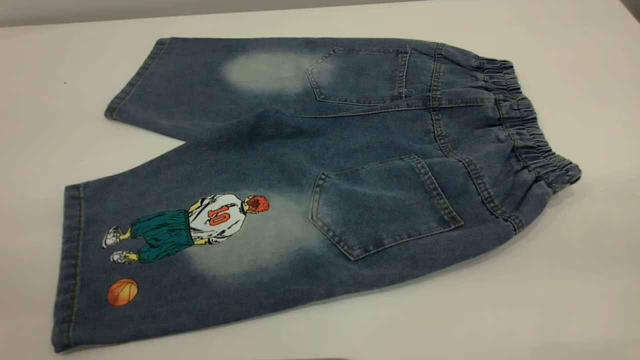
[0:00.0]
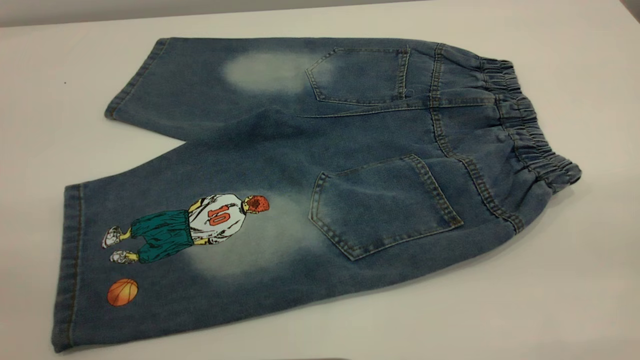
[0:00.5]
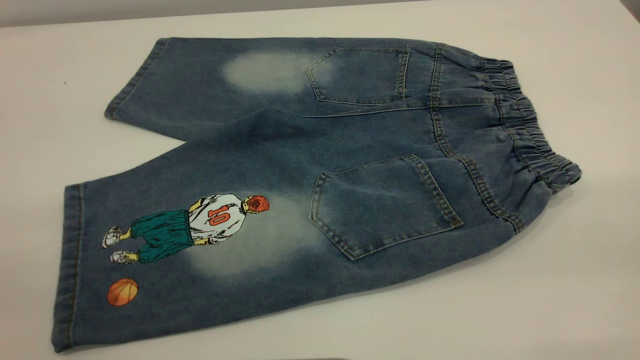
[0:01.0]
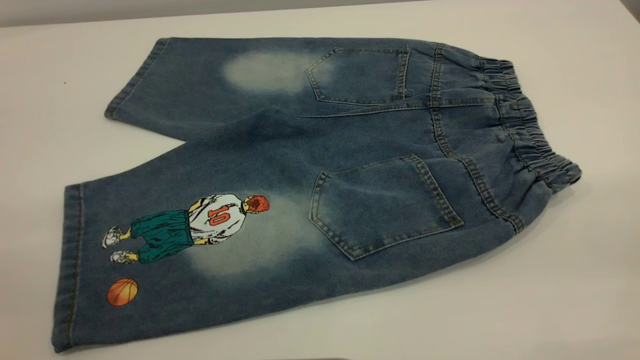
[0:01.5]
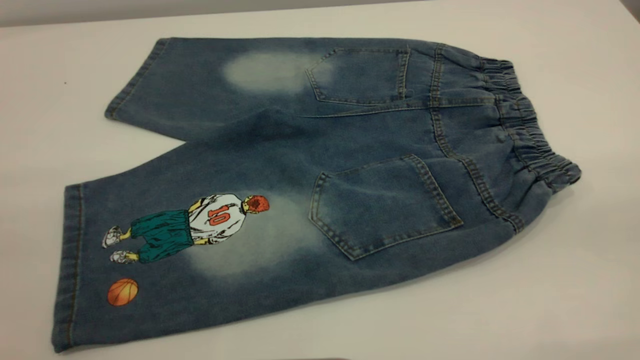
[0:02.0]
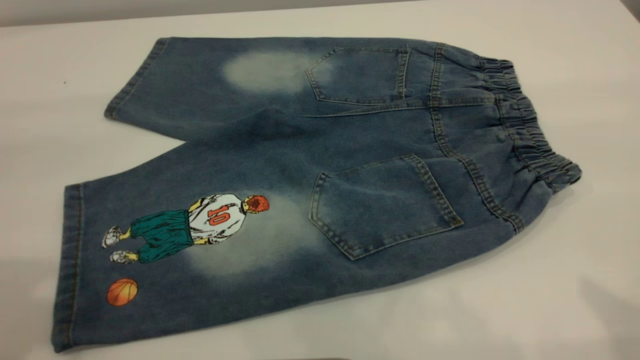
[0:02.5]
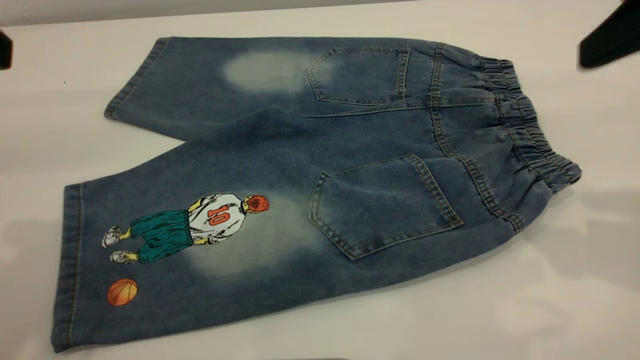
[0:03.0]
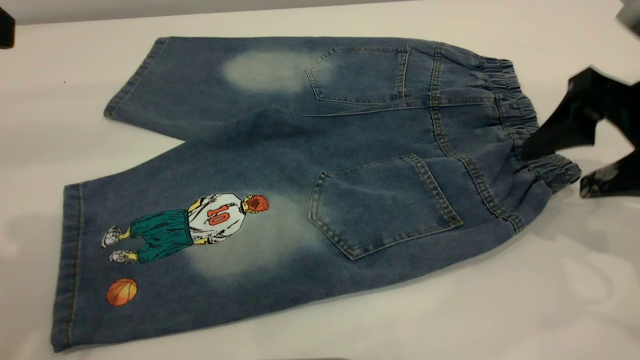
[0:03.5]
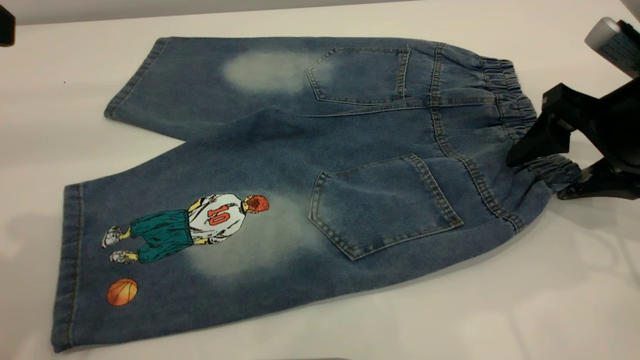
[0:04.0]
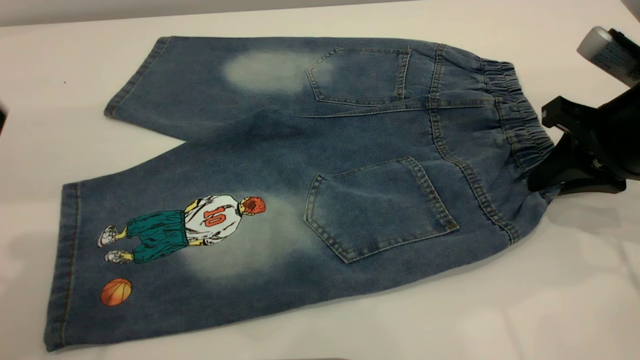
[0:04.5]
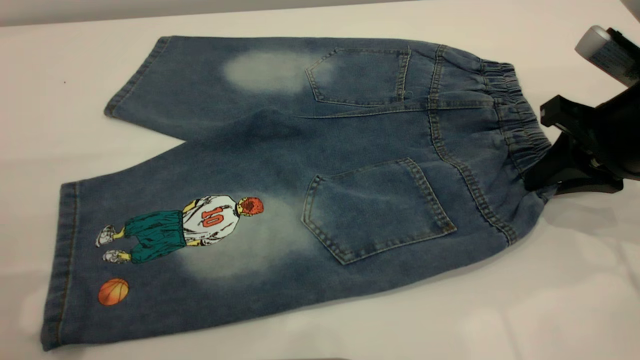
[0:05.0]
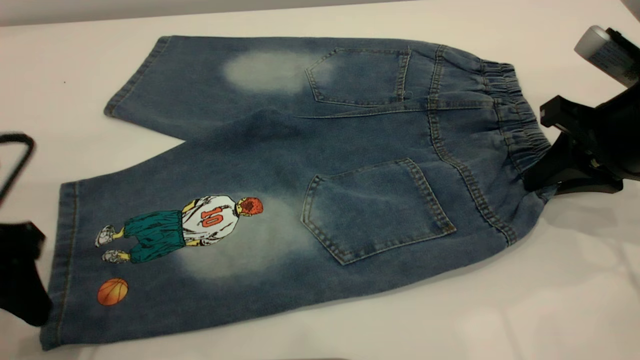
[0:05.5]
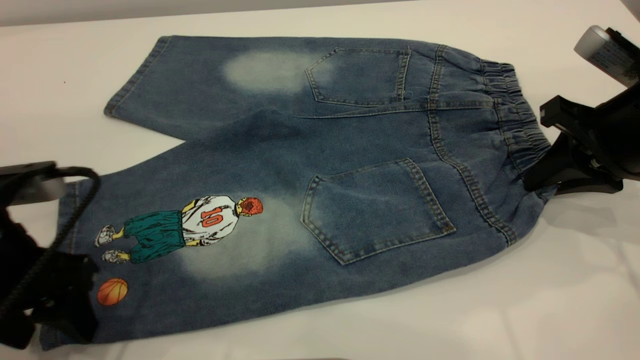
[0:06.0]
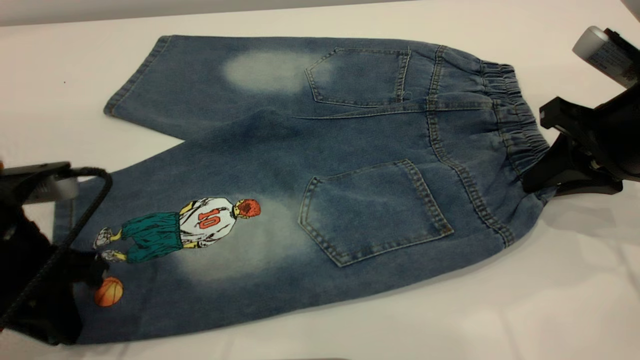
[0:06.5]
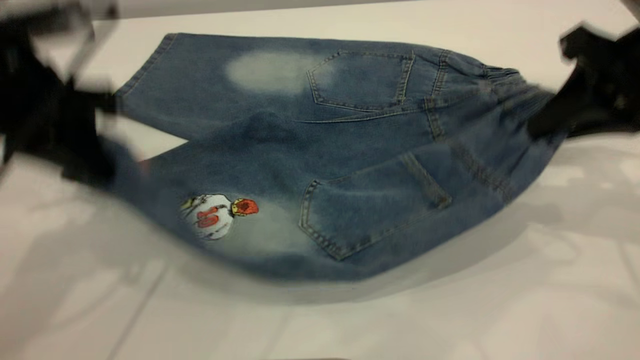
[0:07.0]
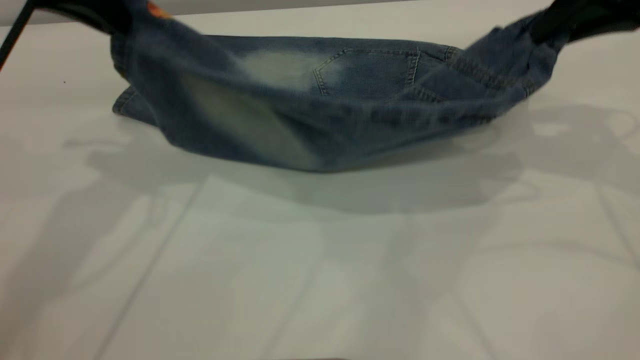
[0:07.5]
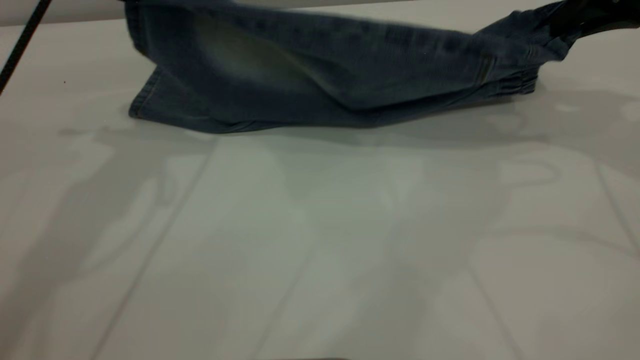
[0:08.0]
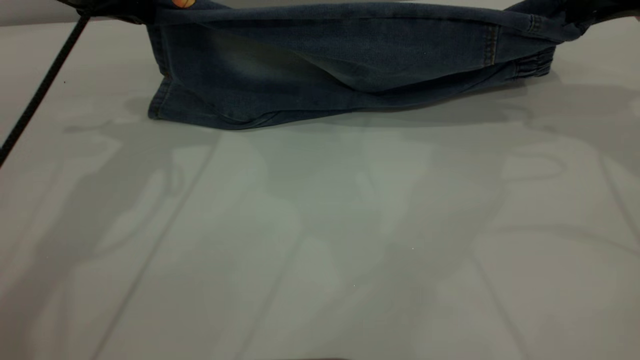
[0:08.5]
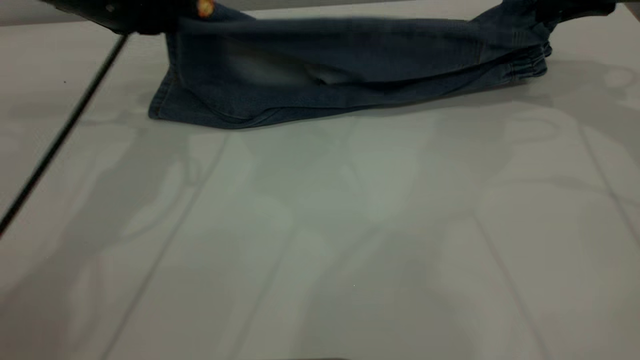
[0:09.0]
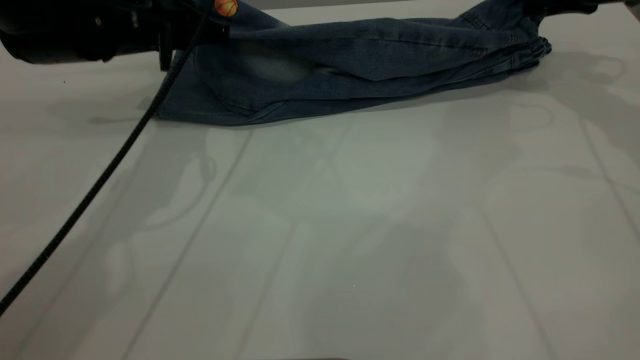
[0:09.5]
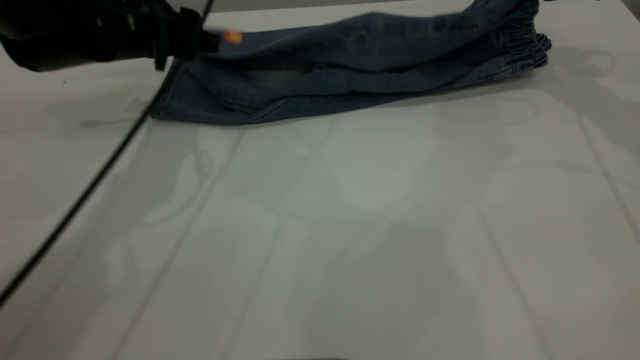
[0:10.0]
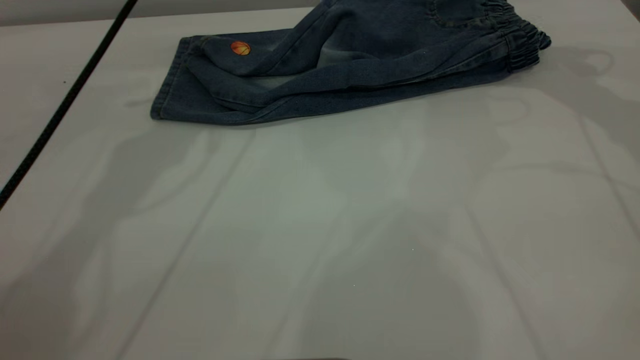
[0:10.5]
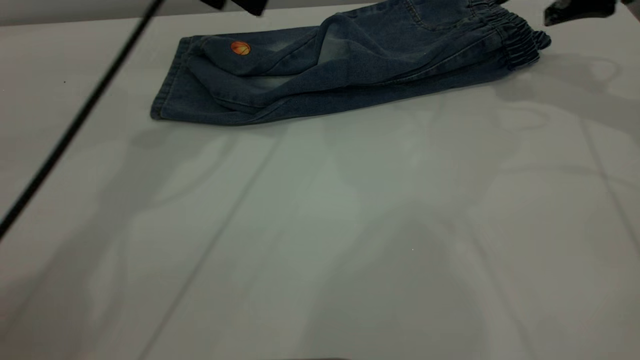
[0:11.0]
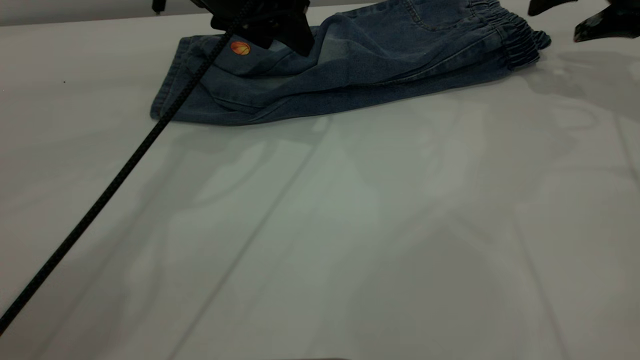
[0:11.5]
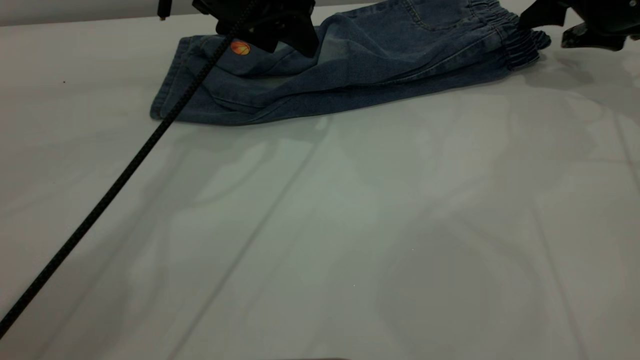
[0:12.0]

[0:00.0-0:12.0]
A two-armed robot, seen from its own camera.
Step, 0:00.0 to 0:10.5: Fold the bottom of the pants upward.
0:02.0 to 0:04.0: The right gripper heads forward and downward, covering some 35 cm.
0:04.0 to 0:06.0: The left gripper heads downward, covering about 20 cm. The right gripper closes.
0:06.0 to 0:08.0: The left gripper is displaced forward and upward by approximately 25 cm, and closes; the right gripper travels upward and forward by approximately 15 cm.
0:08.0 to 0:10.0: The right gripper is displaced forward by some 10 cm, and opens. Meanwhile the left gripper is displaced downward by roughly 10 cm, and opens its fingers.
0:10.0 to 0:12.0: The right gripper heads downward, covering some 5 cm. The left gripper is displaced to the right by some 10 cm.

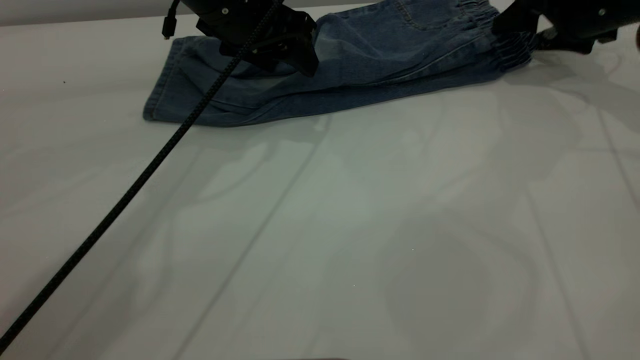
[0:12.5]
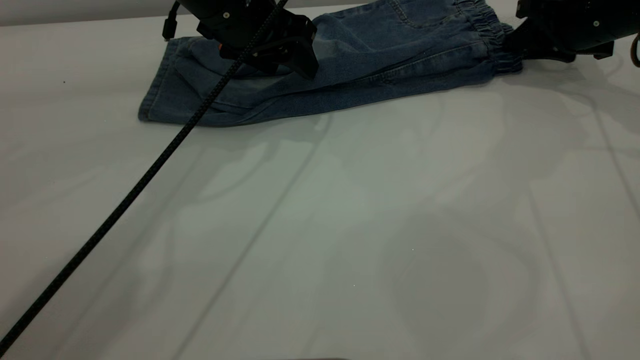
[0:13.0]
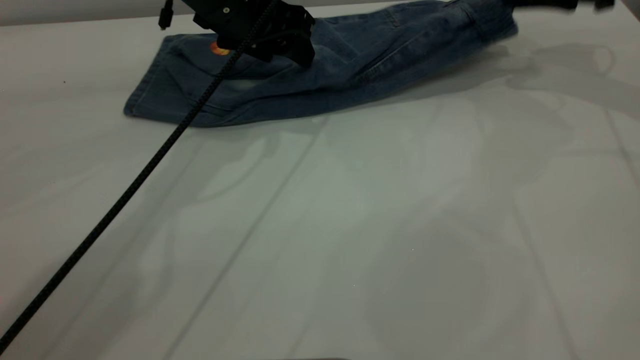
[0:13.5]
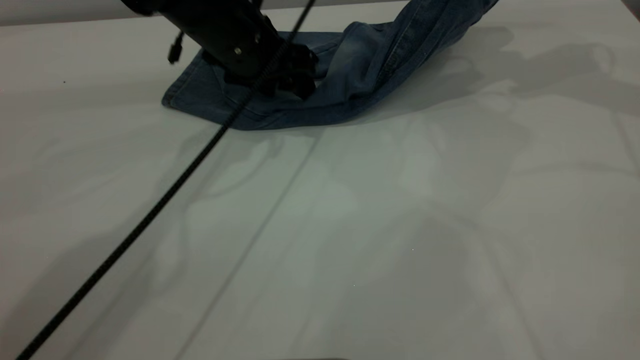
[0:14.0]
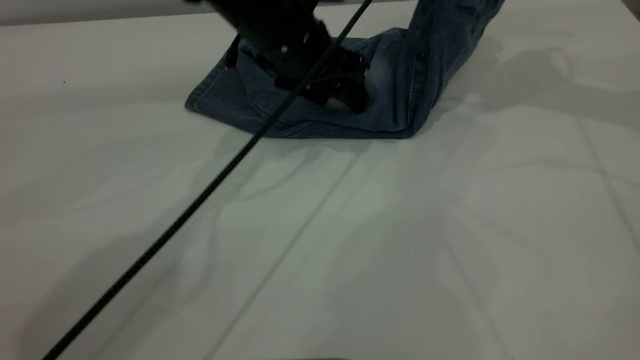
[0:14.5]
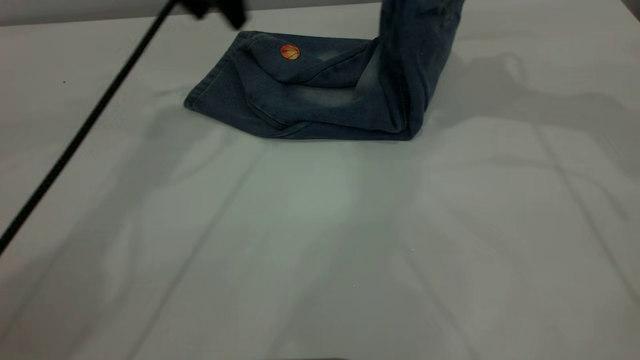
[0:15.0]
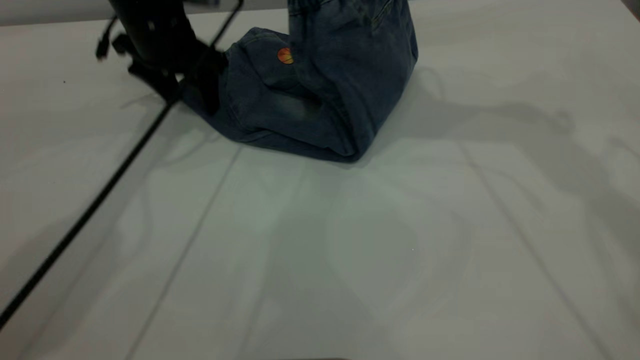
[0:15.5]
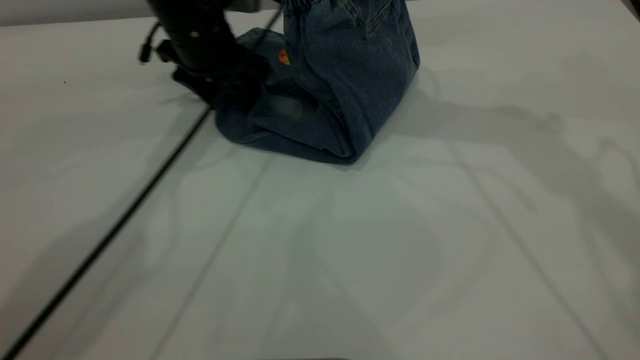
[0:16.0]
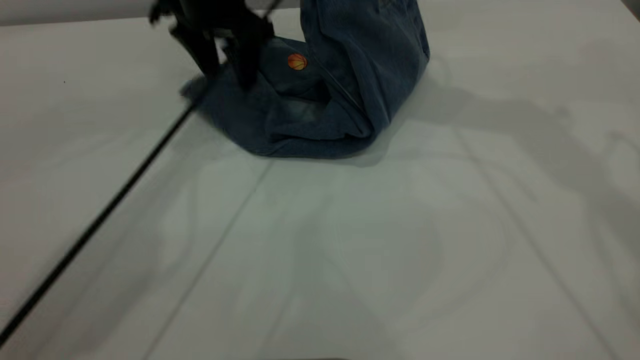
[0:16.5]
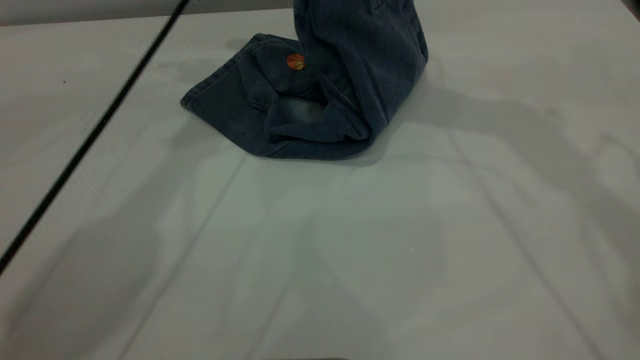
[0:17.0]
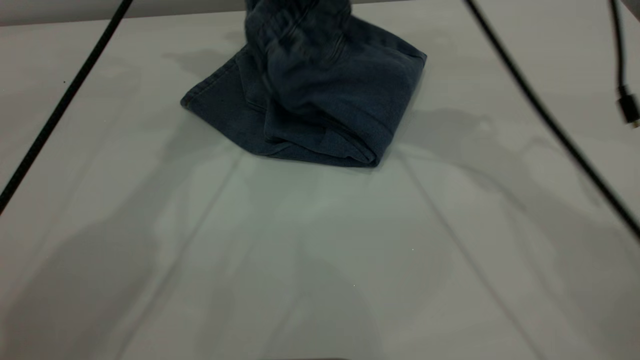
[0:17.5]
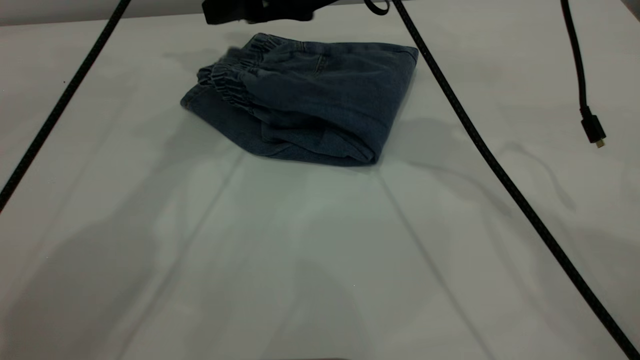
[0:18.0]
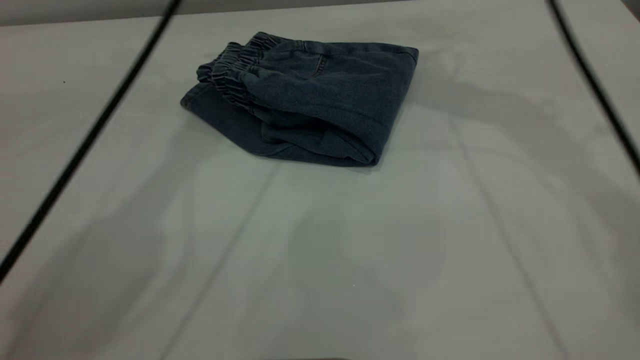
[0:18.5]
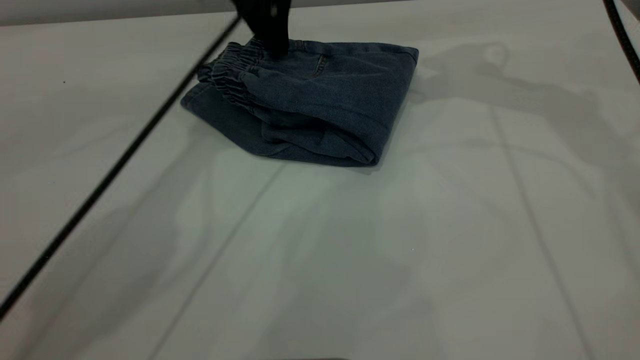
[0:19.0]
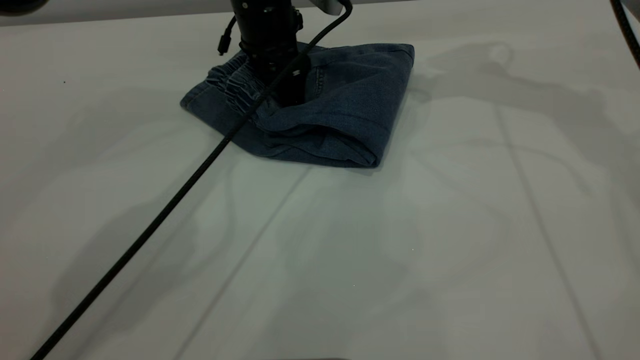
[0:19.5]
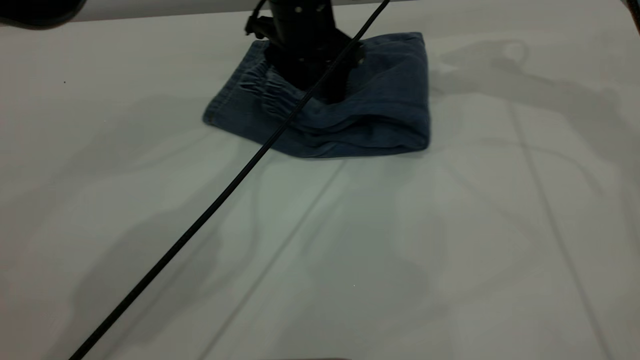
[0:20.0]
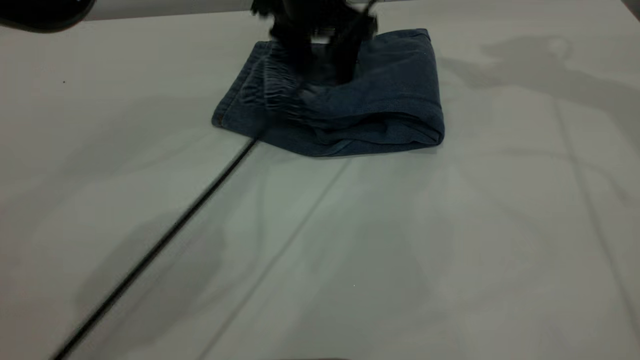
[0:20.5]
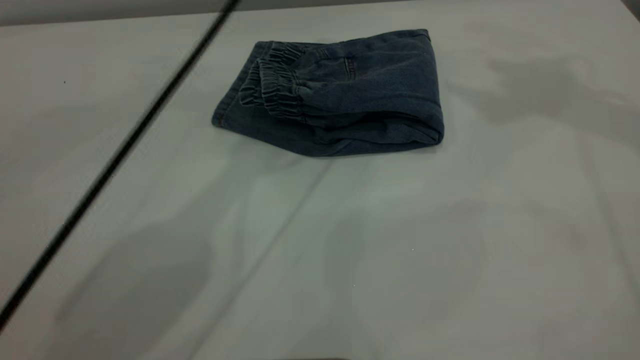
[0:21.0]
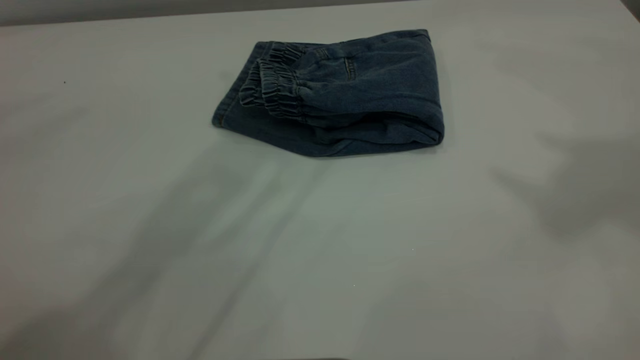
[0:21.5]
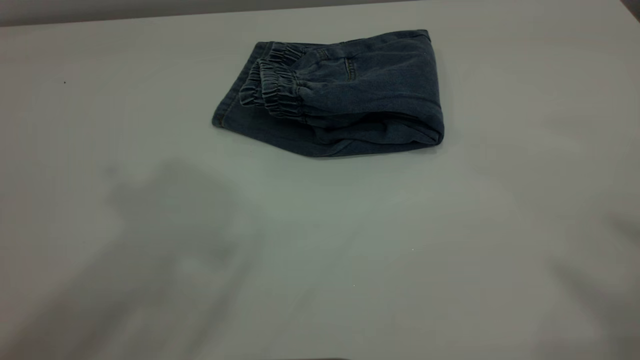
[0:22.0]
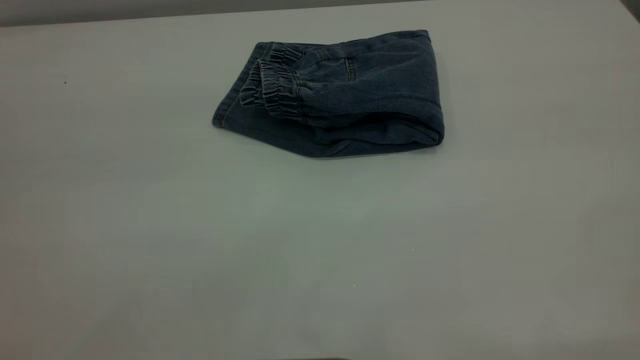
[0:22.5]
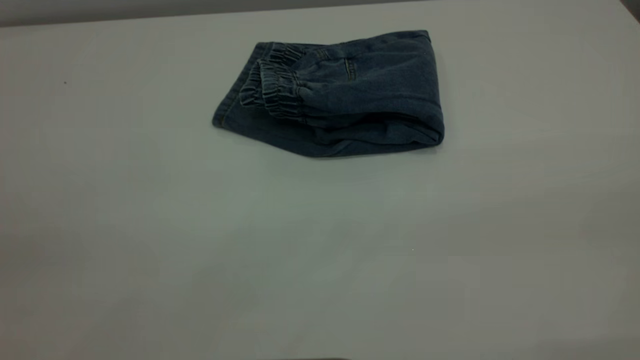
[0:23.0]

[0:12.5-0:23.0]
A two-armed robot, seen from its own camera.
Step, 0:12.5 to 0:18.0: Fold your pants from right to left.
0:12.5 to 0:14.5: The right gripper travels upward by approximately 15 cm, and closes, while the left gripper is displaced to the right by some 5 cm.
0:14.5 to 0:16.5: The left gripper heads to the left and forward, covering approximately 10 cm; the right gripper shifts roughly 15 cm to the left.
0:16.5 to 0:19.0: The left gripper reaches roughly 15 cm upward, then returns. Meanwhile the right gripper is displaced to the right and downward by approximately 10 cm, and opens.
0:19.0 to 0:21.0: The left gripper moves upward and to the right, approximately 15 cm. The right gripper is displaced upward and backward by roughly 20 cm.
0:21.0 to 0:23.0: The left gripper travels backward and to the left by roughly 50 cm.
